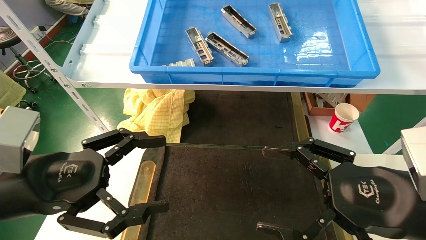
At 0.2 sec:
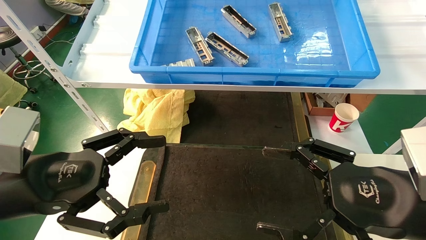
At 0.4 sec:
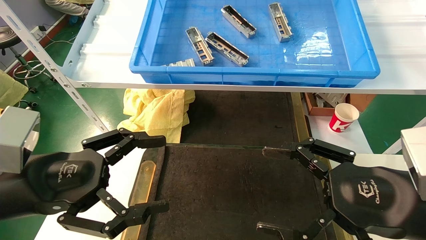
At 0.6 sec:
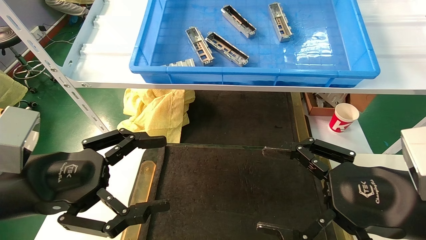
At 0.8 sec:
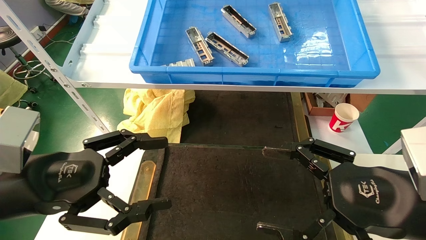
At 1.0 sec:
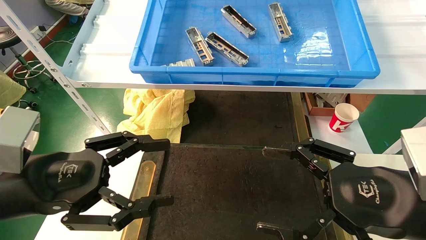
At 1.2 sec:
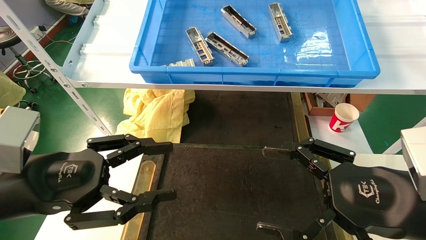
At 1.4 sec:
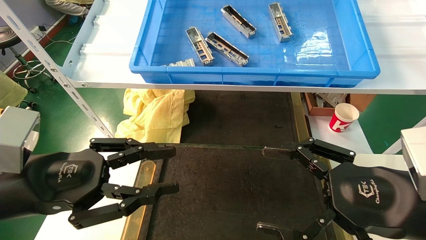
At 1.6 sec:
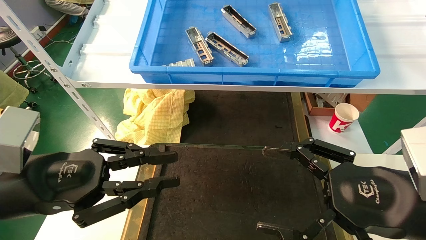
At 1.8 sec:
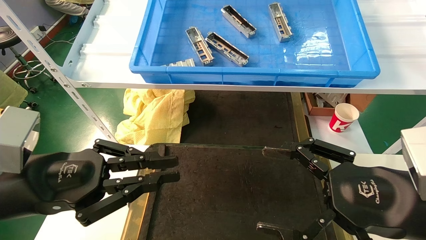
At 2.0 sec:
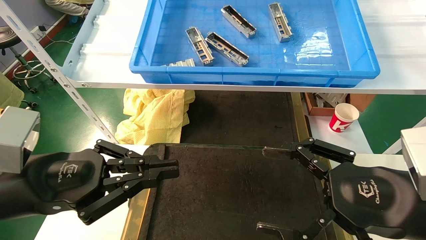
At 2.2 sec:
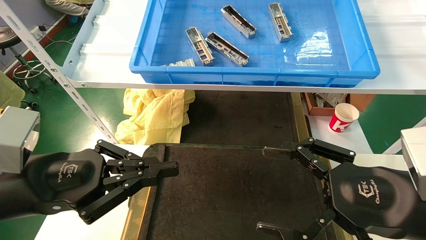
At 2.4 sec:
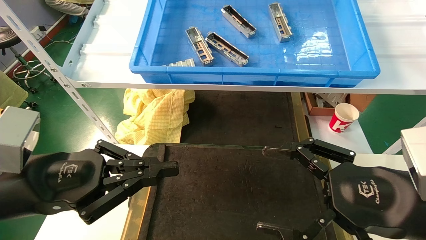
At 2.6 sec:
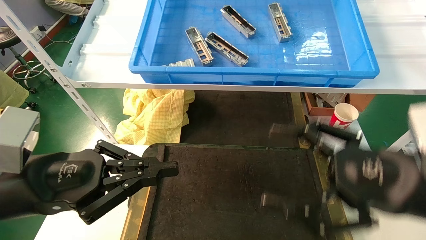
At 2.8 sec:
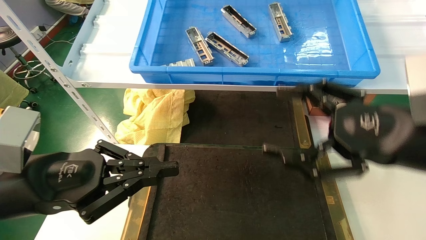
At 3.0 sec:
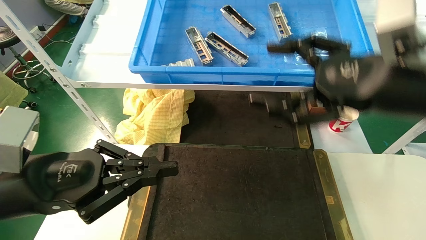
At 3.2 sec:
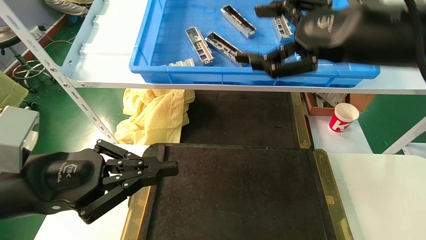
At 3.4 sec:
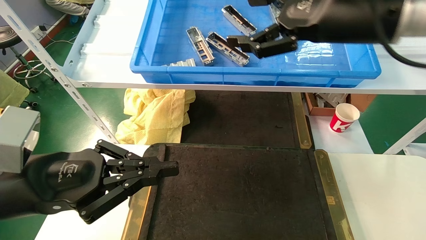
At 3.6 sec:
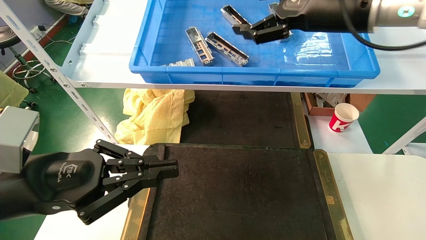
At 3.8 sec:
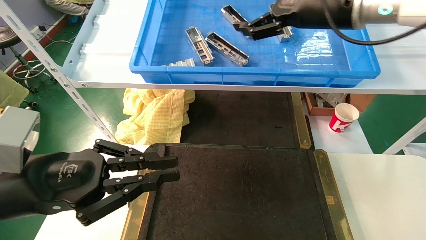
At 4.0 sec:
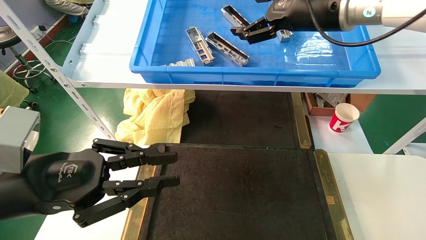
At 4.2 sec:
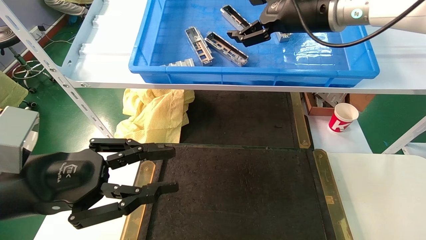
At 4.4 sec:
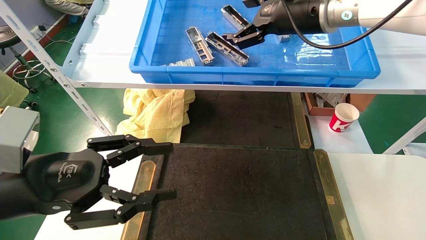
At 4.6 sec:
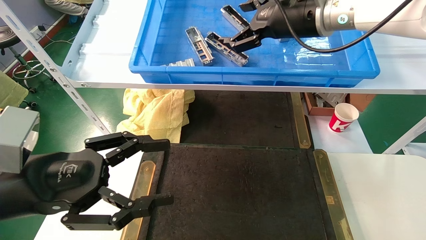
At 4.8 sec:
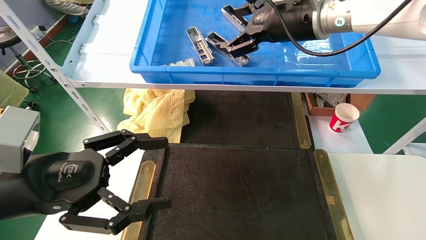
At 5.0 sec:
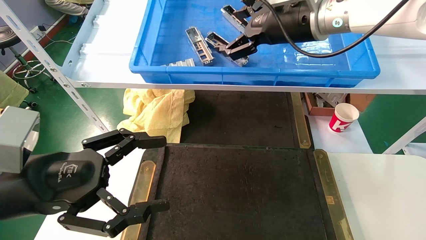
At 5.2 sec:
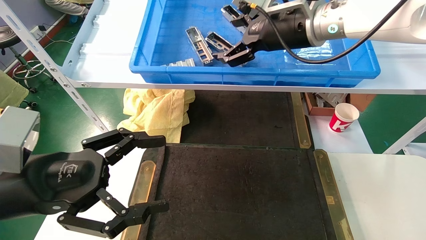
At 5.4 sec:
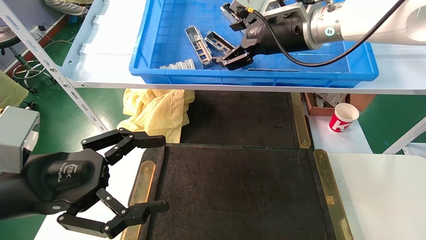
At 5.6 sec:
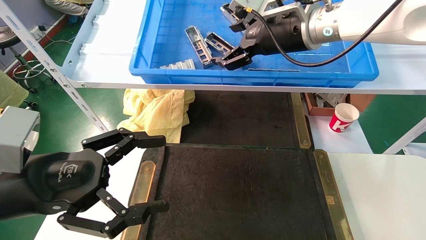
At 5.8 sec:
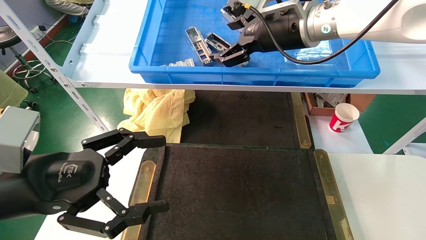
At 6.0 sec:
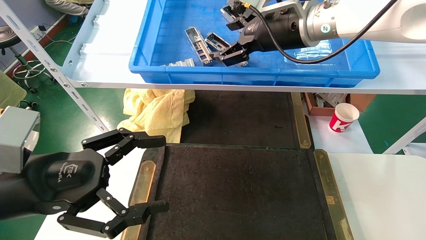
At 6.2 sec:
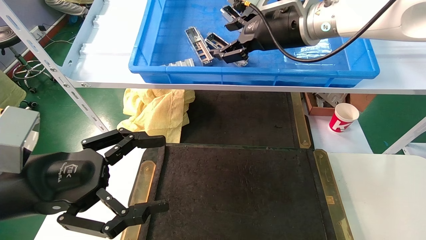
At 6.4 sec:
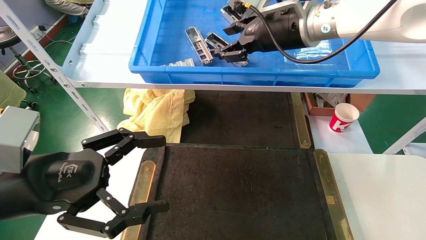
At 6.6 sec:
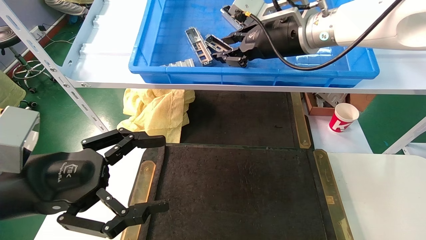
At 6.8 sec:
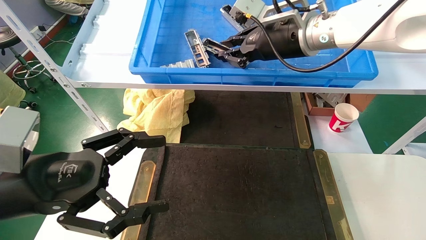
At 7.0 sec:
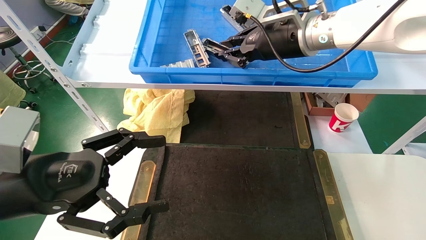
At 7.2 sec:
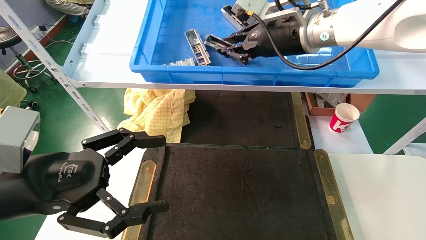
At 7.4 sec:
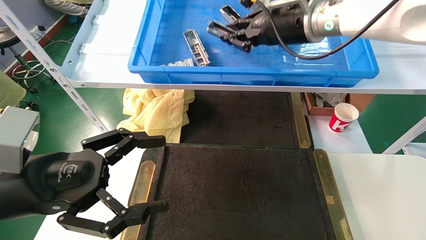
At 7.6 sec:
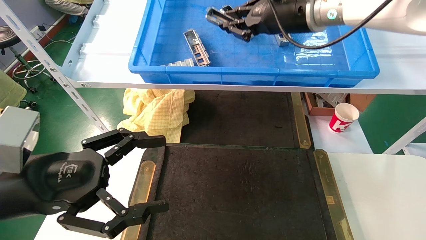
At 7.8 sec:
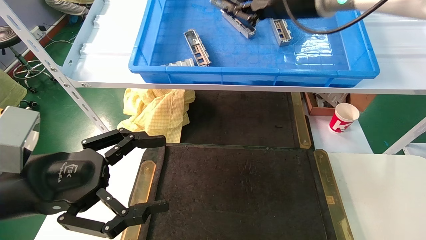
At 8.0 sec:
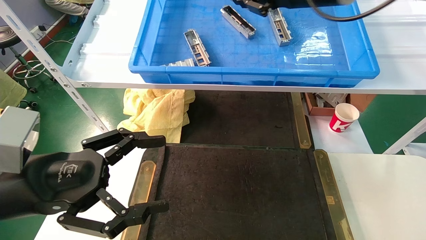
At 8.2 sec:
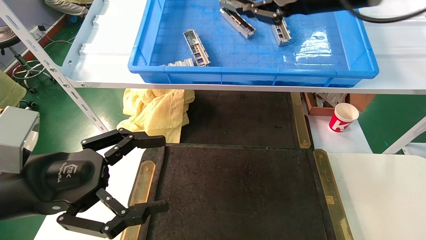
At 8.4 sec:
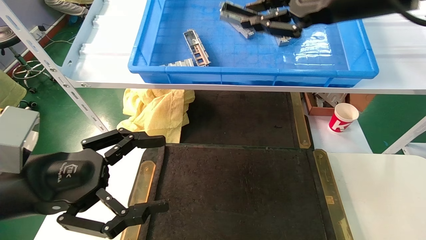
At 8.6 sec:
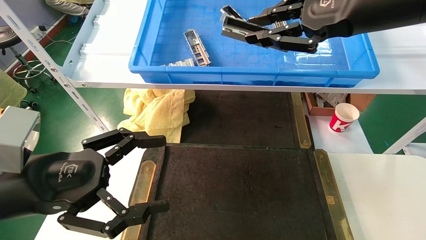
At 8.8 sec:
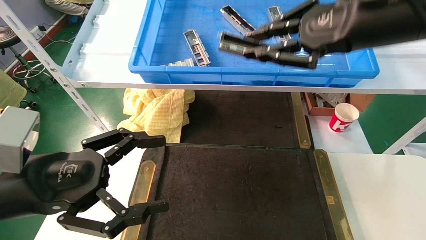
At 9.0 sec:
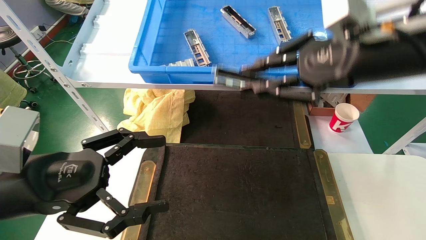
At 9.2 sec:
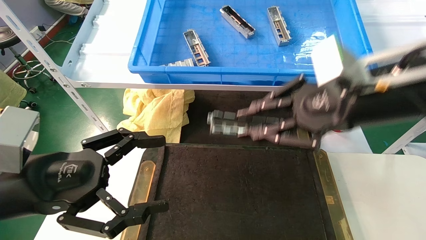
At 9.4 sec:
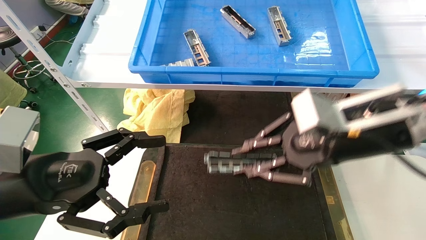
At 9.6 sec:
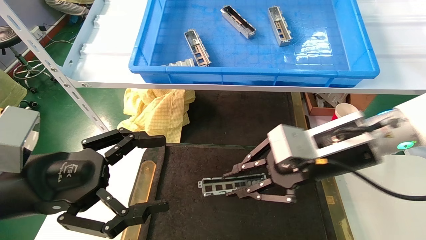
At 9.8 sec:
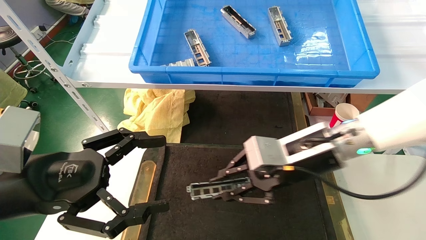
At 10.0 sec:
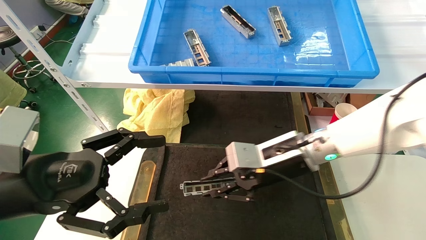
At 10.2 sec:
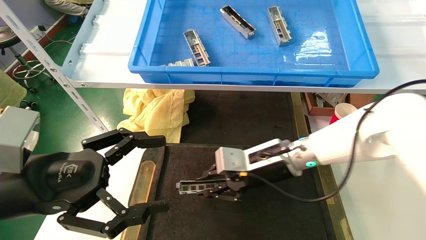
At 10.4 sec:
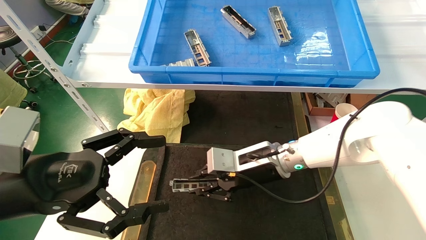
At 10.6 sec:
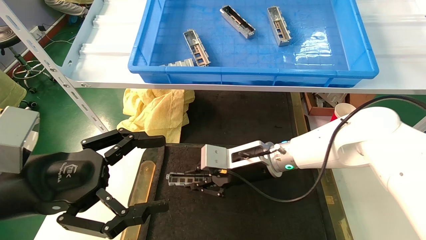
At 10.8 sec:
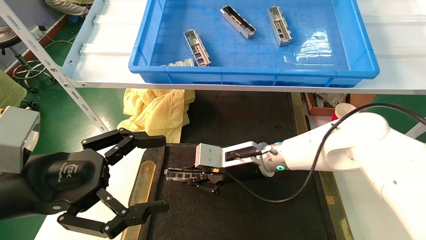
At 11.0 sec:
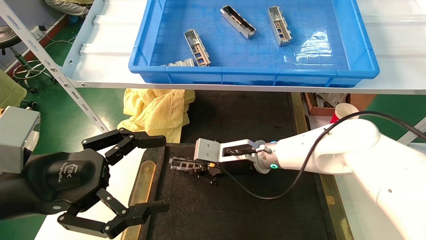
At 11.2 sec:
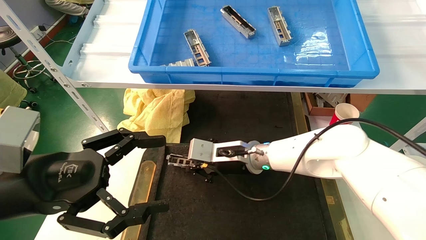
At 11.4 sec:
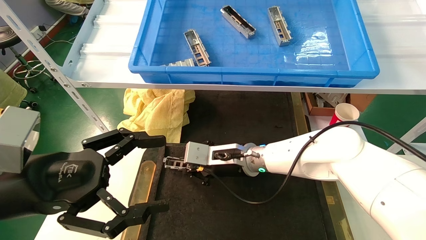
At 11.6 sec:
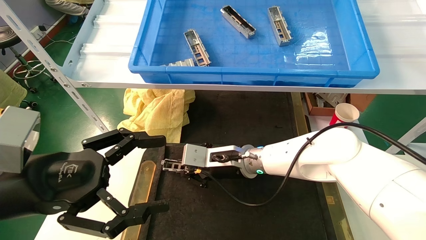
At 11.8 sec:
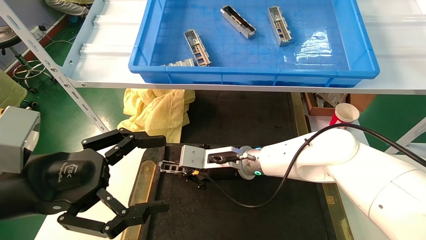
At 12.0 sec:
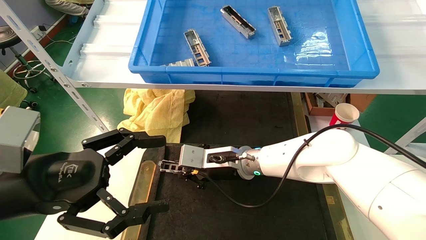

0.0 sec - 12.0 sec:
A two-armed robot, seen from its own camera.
Task of the whole recording: grasp the part and place them on the black container.
Step, 3.0 sec - 7.8 sec: Pick up and lift the front USB bracket from the feeding area.
0.0 sec - 1.6 sec: The left gripper closes.
1.6 sec - 3.0 sec: The left gripper closes. Meanwhile the right gripper heads upward and forward, covering roughly 15 cm.
3.0 sec - 4.4 sec: The right gripper heads forward, upward and to the left, covering approximately 20 cm; the left gripper opens.
4.4 sec - 6.0 sec: The left gripper opens up.
6.0 sec - 7.6 sec: The right gripper closes its fingers.
7.6 sec - 9.0 sec: The right gripper is displaced backward, to the right and downward by about 15 cm.
9.0 sec - 10.4 sec: The right gripper shifts roughly 30 cm downward, to the left and forward.
10.4 sec - 12.0 sec: The right gripper moves to the left, approximately 5 cm.

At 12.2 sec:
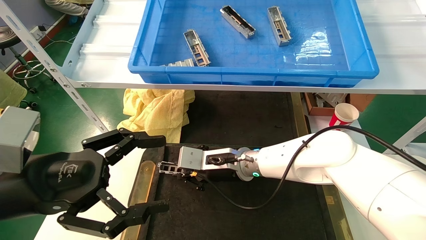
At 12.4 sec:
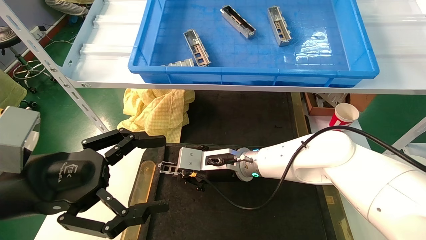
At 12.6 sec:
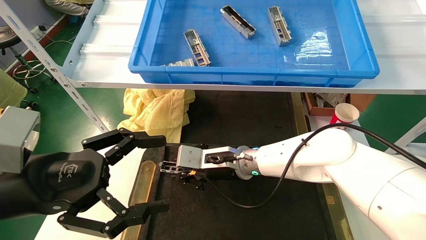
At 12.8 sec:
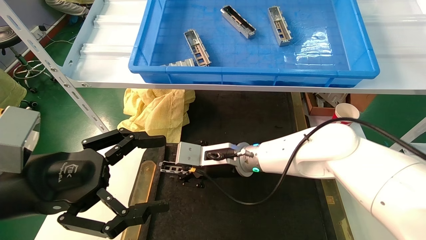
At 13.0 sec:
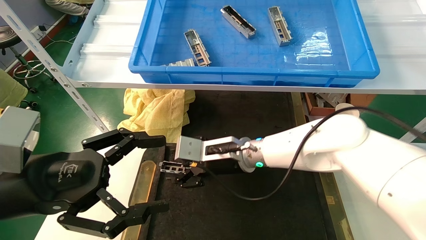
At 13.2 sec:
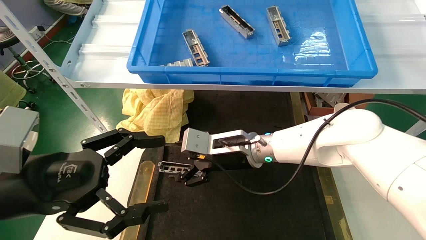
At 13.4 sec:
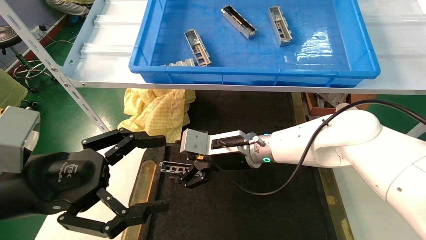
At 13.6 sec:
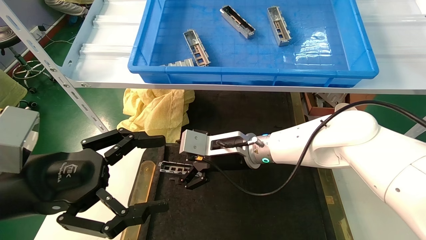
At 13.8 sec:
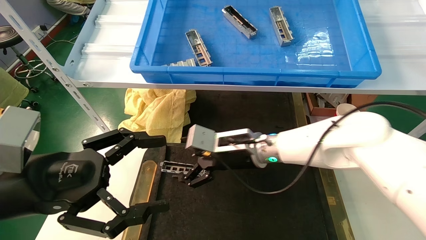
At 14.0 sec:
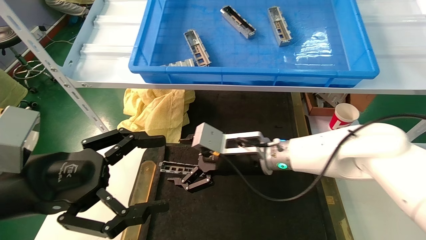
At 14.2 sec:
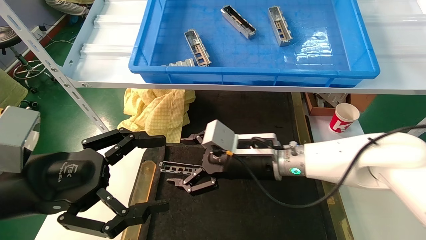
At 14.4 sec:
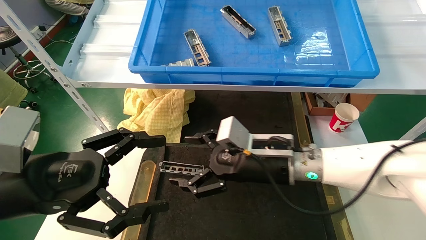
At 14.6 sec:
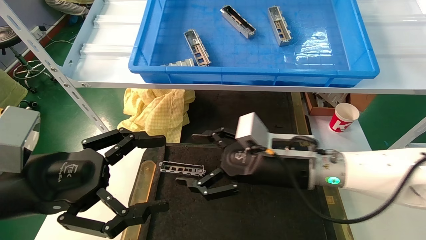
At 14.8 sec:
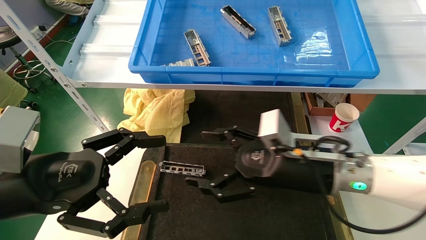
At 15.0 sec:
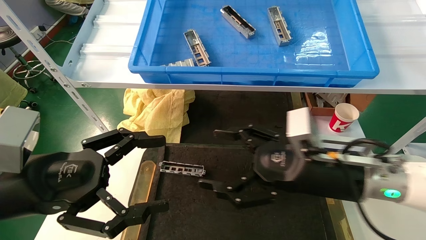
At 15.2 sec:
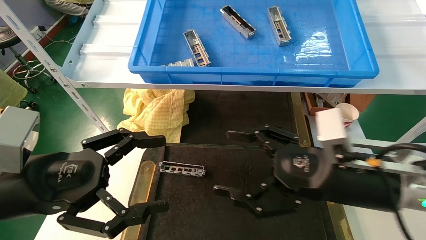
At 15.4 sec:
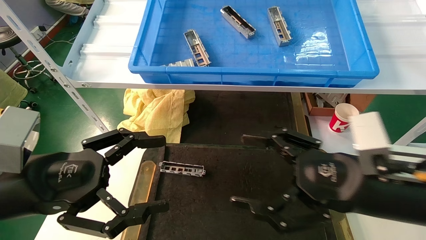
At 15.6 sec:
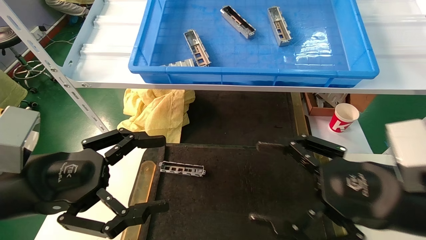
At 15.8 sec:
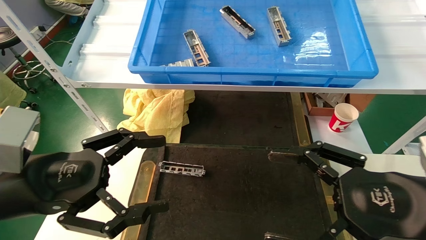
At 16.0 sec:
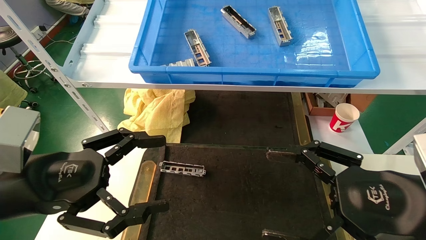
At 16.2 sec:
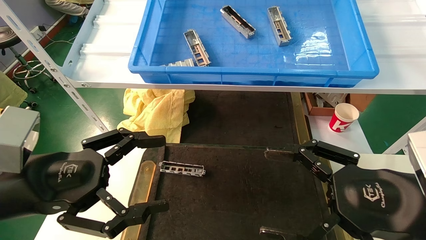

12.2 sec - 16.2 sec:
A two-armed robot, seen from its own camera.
Task of the whole recording: grasp the part and place them on the black container.
12.2 sec - 13.6 sec: The right gripper opens its fingers.
13.6 sec - 14.8 sec: The right gripper is displaced to the right and backward by some 15 cm.
14.8 sec - 16.2 sec: The right gripper goes about 15 cm backward and to the right.
